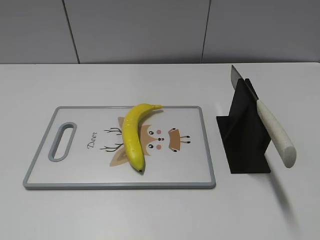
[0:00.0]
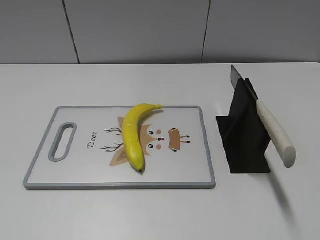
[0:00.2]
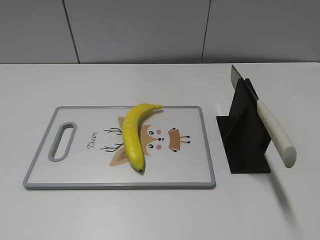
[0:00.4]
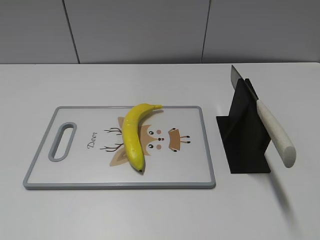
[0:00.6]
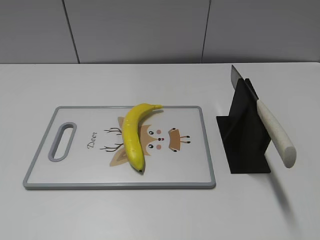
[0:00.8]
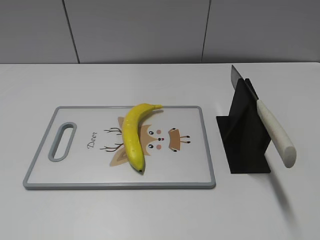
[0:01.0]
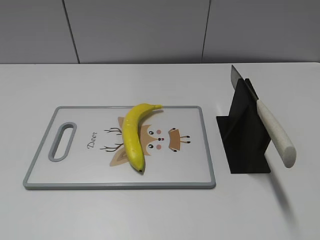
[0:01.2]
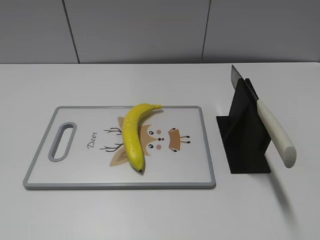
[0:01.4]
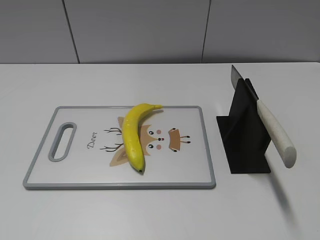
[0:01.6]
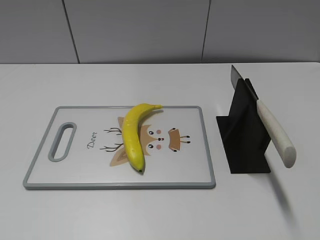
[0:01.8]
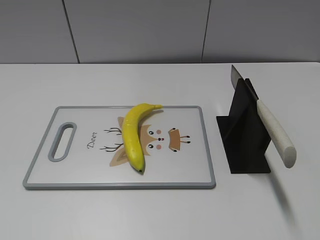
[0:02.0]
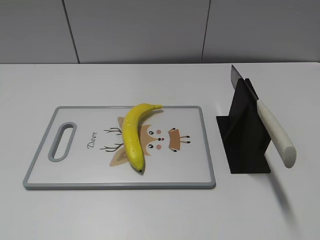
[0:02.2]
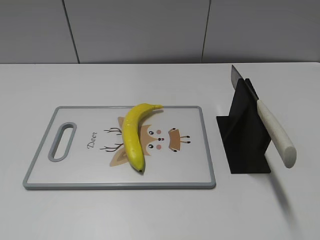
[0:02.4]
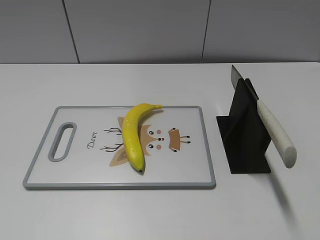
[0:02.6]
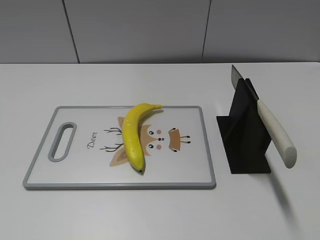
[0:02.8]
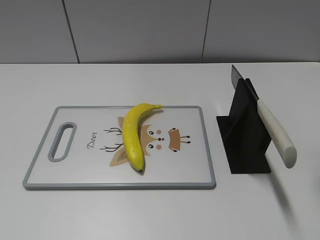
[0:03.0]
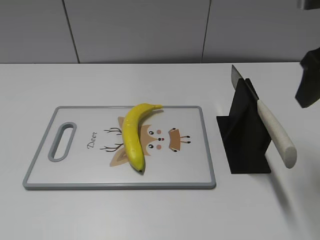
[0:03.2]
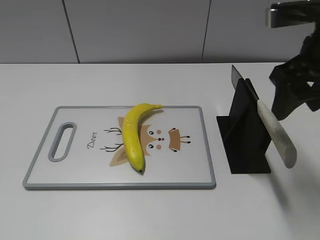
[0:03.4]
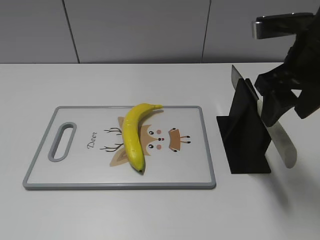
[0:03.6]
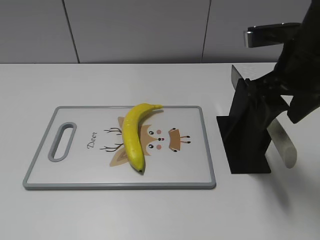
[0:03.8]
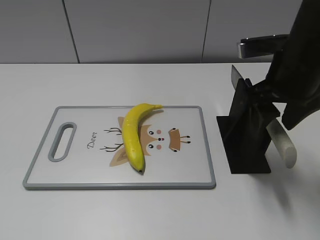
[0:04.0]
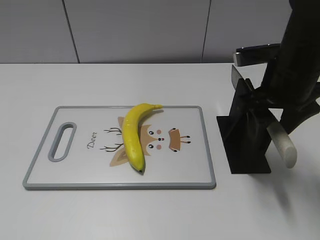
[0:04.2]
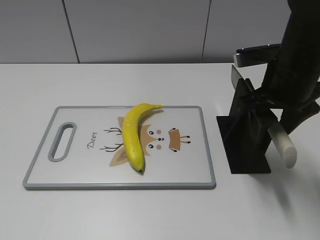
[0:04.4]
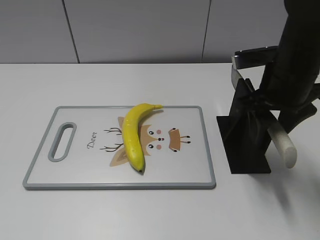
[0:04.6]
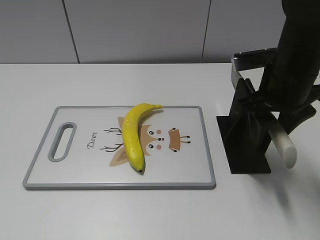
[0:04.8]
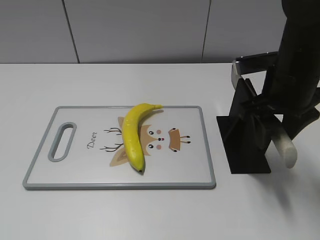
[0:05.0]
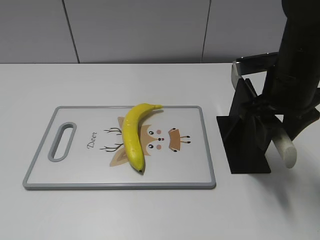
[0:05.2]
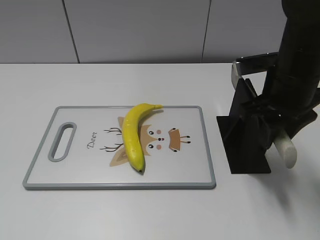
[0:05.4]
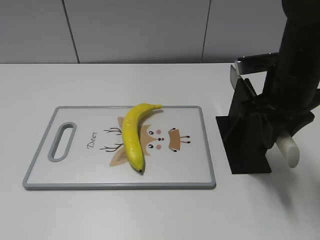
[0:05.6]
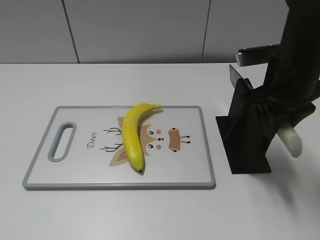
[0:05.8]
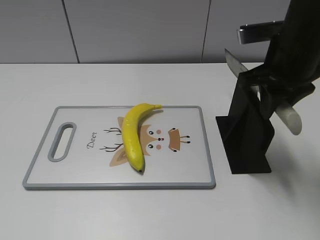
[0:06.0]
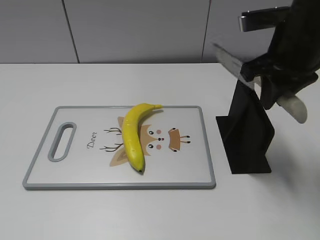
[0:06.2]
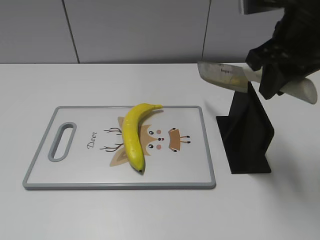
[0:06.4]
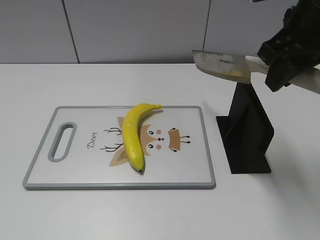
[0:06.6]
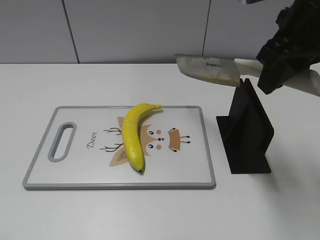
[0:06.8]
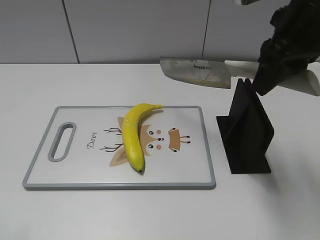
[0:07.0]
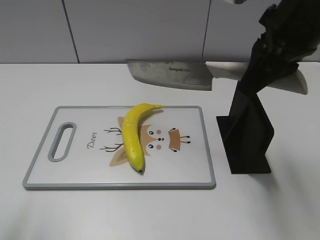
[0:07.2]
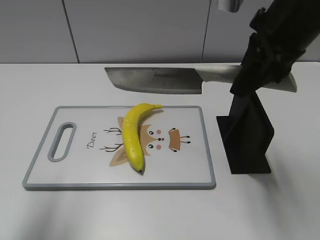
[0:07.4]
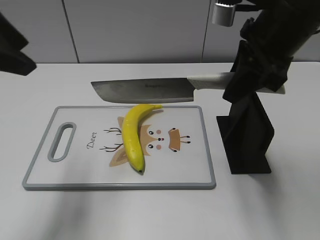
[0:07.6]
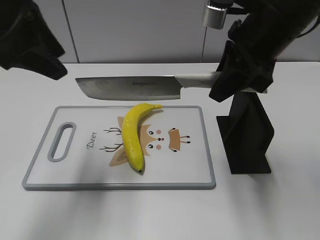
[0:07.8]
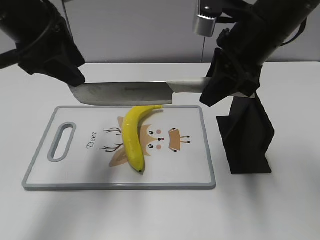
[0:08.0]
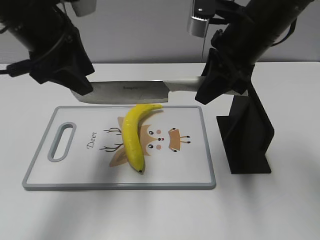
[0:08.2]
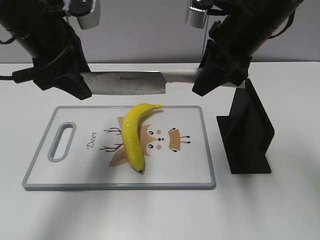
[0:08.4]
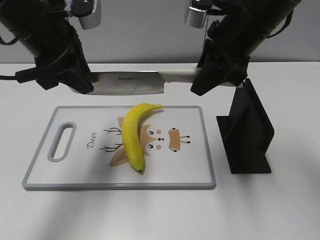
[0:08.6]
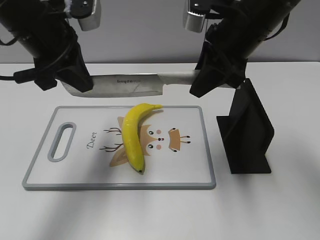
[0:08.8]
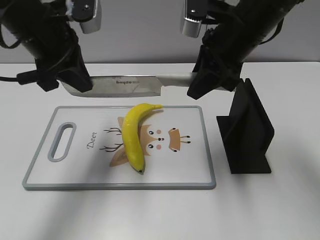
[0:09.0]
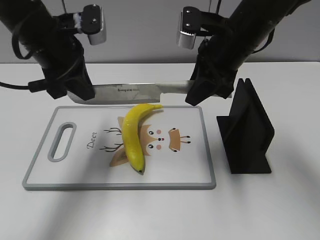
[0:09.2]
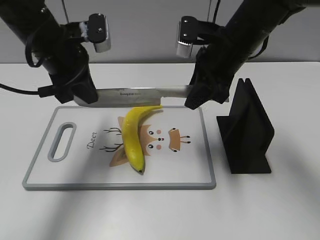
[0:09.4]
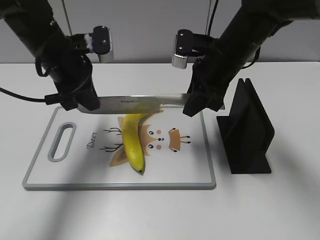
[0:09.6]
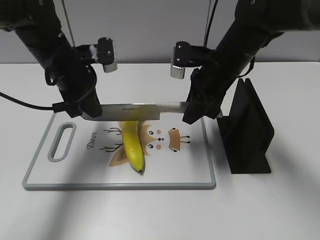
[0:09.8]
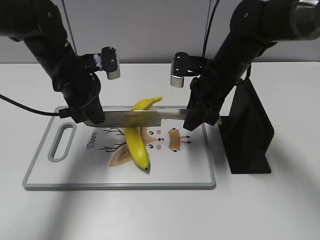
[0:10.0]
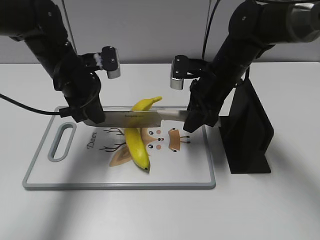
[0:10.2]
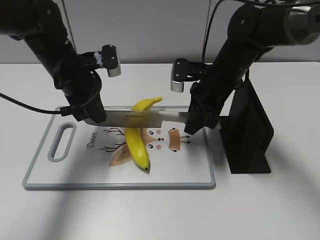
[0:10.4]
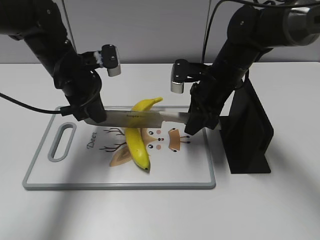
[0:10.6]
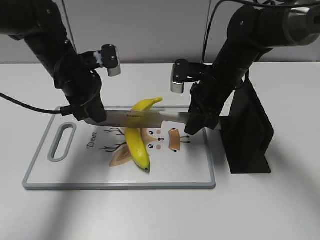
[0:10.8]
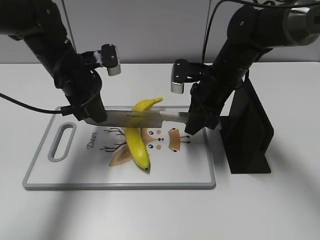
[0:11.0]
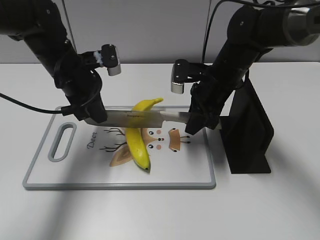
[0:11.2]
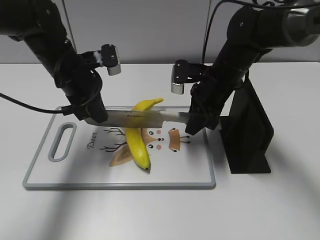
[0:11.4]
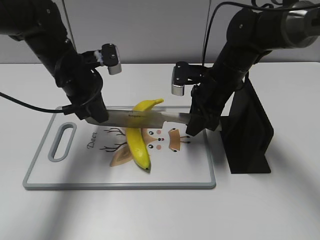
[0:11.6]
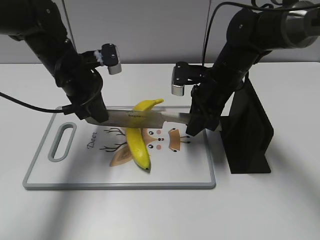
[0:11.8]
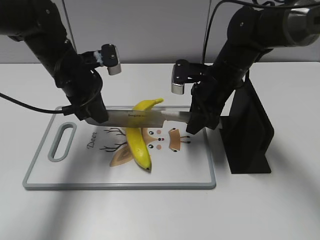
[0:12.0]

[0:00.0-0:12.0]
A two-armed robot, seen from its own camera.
Task of the whole recording: cut plastic banana.
Step, 0:00.0 to 0:06.8: Grab the knife handle with your right hand.
Step, 0:07.0 to 0:10.8: Hold the blade with your left hand.
0:03.0 to 0:04.4: The right gripper shifts roughly 15 cm downward, to the left and forward.
0:04.4 to 0:06.0: The right gripper closes.
0:06.0 to 0:07.6: The left gripper goes about 25 cm forward and to the right. The right gripper heads upward, covering some 5 cm.
0:07.6 to 0:09.0: The right gripper heads forward, covering some 5 cm. The left gripper shifts some 15 cm forward, downward and to the right, and closes up.
0:09.0 to 0:10.4: The two grippers go approximately 10 cm downward.
0:10.4 to 0:12.0: Both grippers stay put.

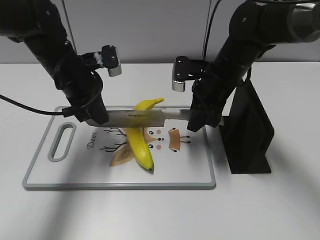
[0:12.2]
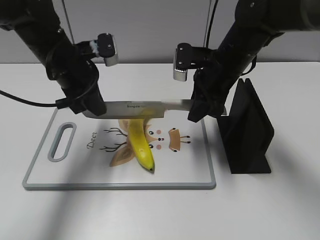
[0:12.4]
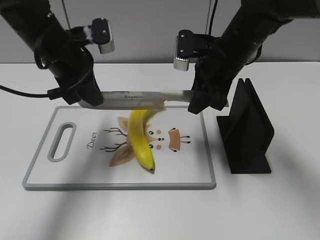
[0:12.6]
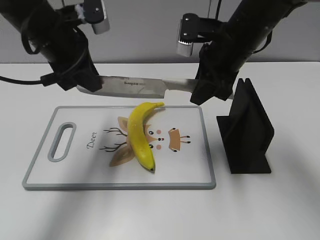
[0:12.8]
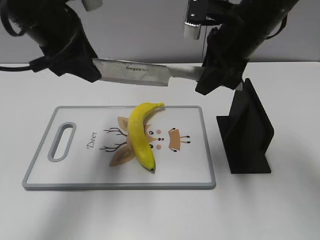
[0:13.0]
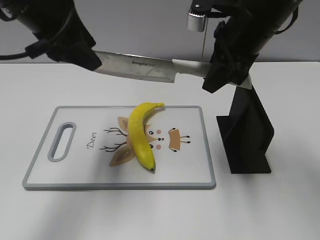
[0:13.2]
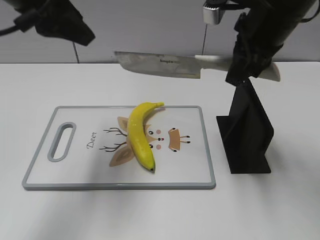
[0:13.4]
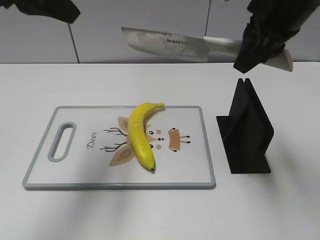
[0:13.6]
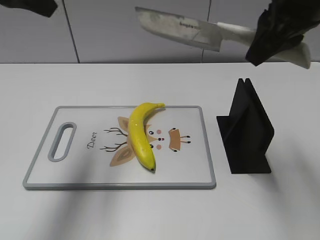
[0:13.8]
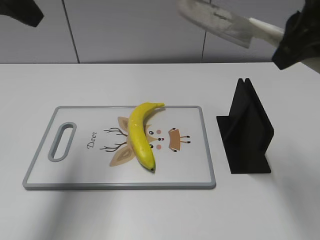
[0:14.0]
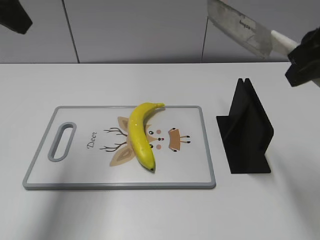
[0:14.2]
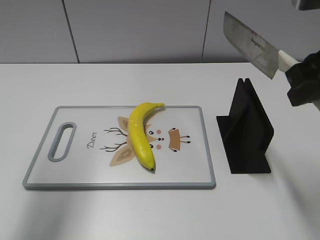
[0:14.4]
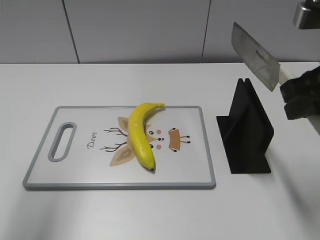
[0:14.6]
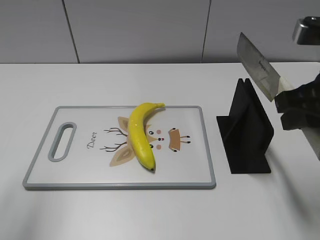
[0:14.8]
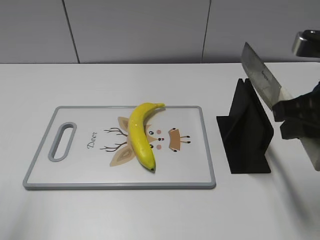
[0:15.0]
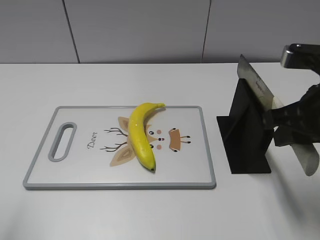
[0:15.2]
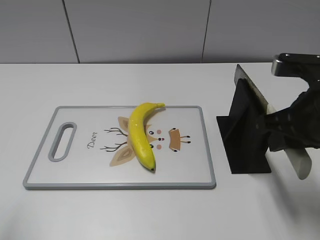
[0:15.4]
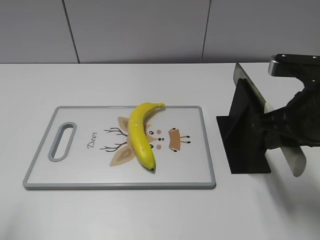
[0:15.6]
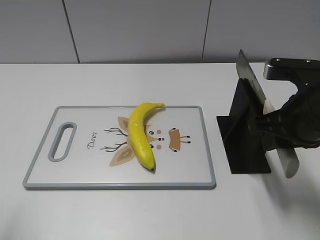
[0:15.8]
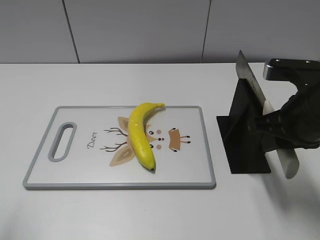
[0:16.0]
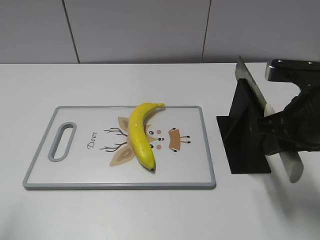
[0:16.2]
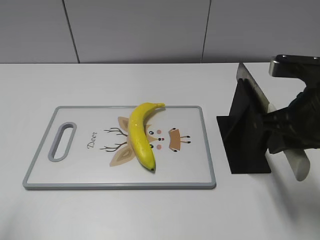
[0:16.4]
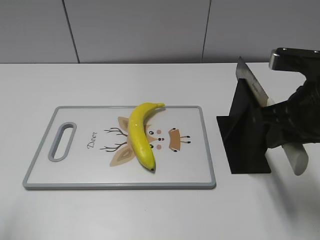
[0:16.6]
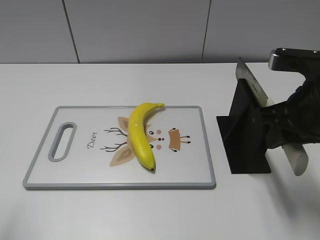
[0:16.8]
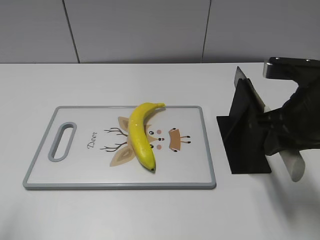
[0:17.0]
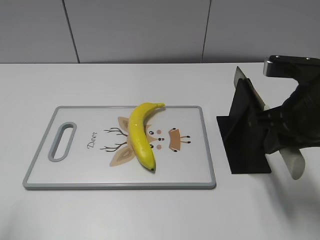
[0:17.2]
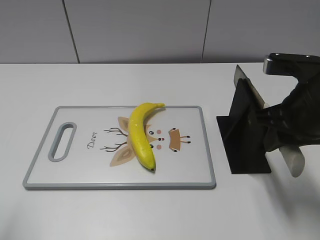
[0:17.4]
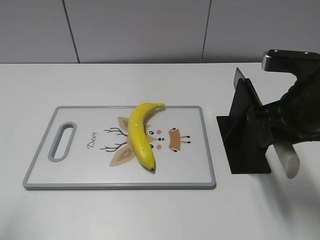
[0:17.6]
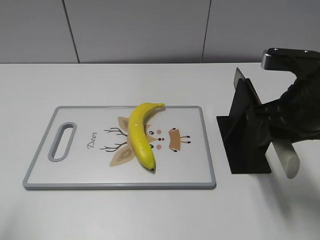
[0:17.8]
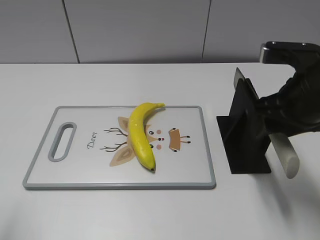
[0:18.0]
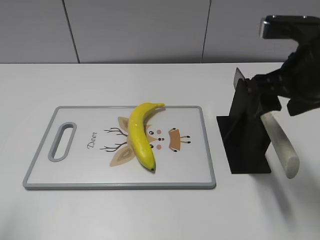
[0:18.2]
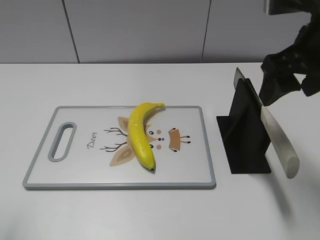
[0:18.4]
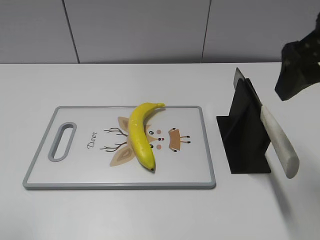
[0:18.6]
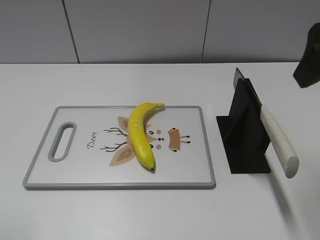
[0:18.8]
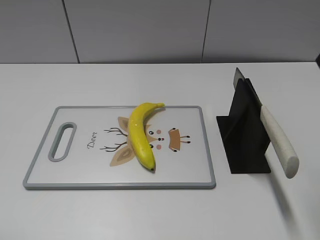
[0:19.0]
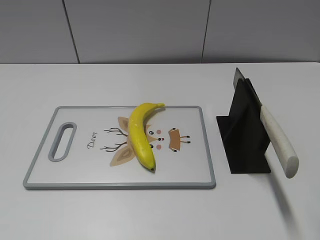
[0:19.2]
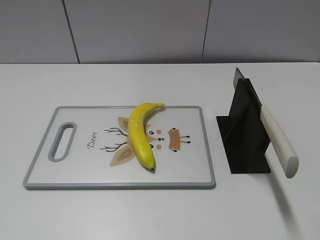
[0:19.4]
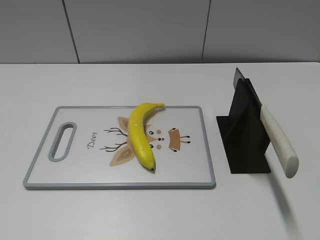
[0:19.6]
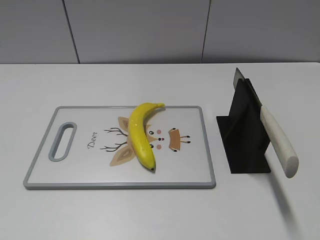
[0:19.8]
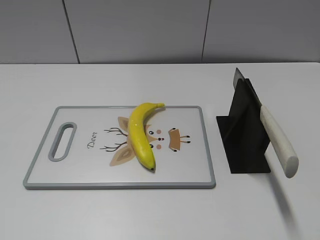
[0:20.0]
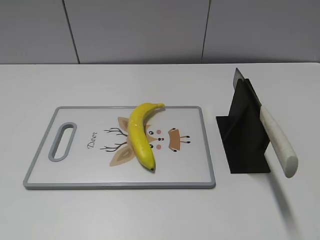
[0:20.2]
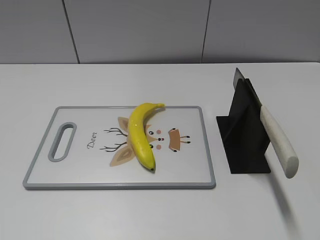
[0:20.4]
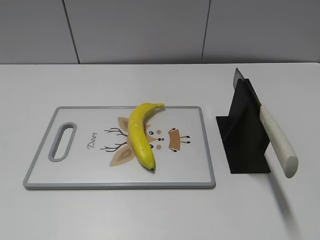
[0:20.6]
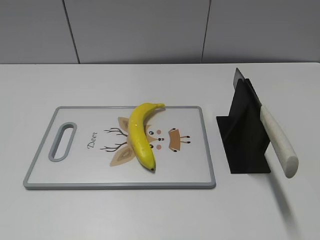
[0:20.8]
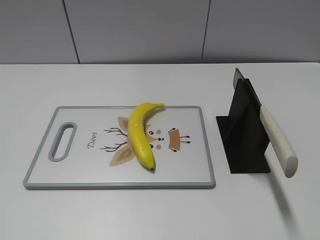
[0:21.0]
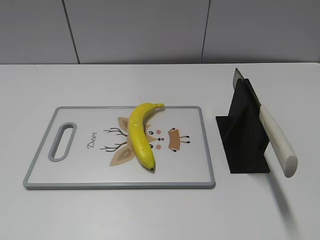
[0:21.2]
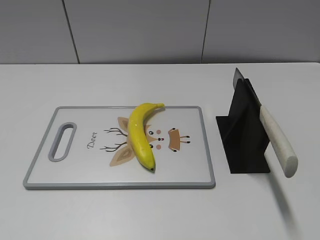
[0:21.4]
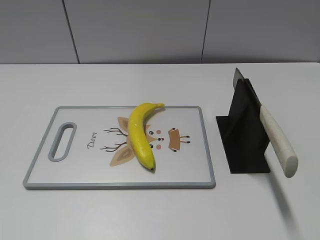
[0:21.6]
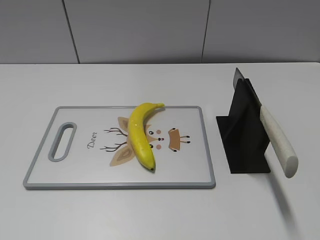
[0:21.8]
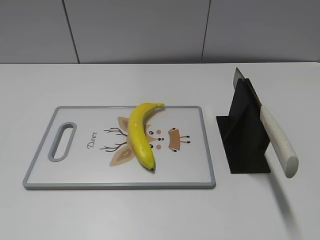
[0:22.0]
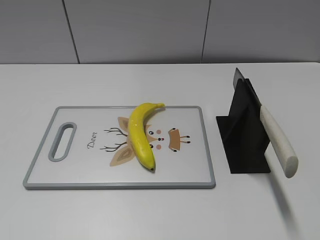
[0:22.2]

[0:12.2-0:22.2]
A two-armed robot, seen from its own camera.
Task of the whole recording: cut plastic banana.
Step, 0:13.4 to 0:15.8: Lift the knife with your right hand.
Step, 0:16.0 to 0:22.2: Place the knife on the storage rack with your right hand.
0:12.2 to 0:13.6: The grippers both shift upward by approximately 20 cm. The left gripper opens up.
0:13.6 to 0:15.0: The left gripper travels backward and to the left by approximately 20 cm. Meanwhile the right gripper moves backward, downward and to the right, some 15 cm.
0:15.0 to 0:16.4: The grippers stay close to where they were, moving slightly.
0:16.4 to 0:18.0: The right gripper opens up.
0:18.0 to 0:19.4: The right gripper moves upward and backward, approximately 20 cm, and opens up.
